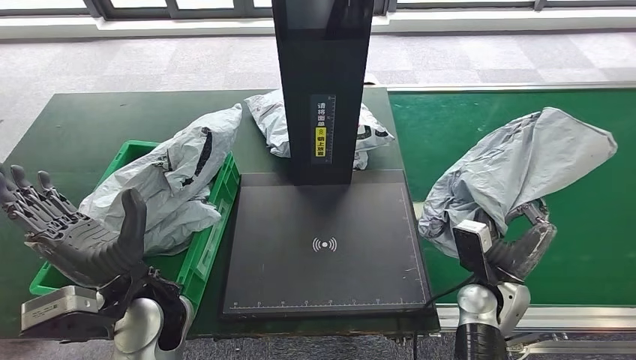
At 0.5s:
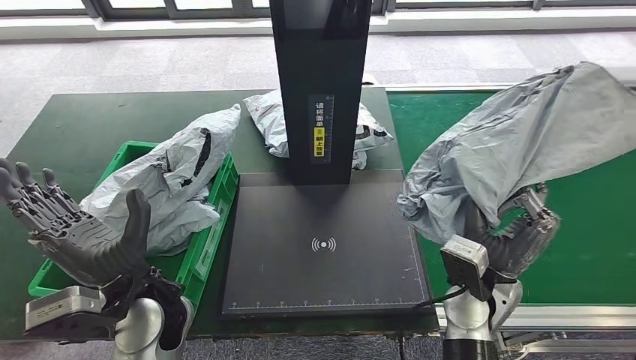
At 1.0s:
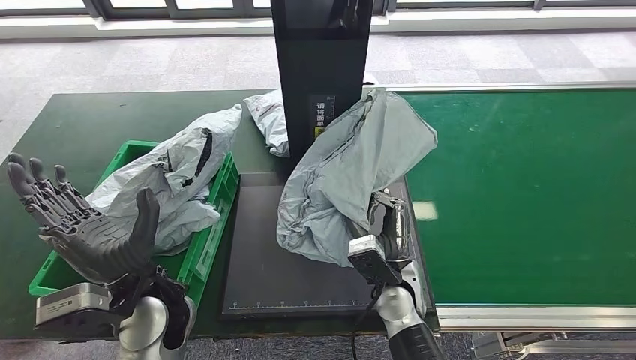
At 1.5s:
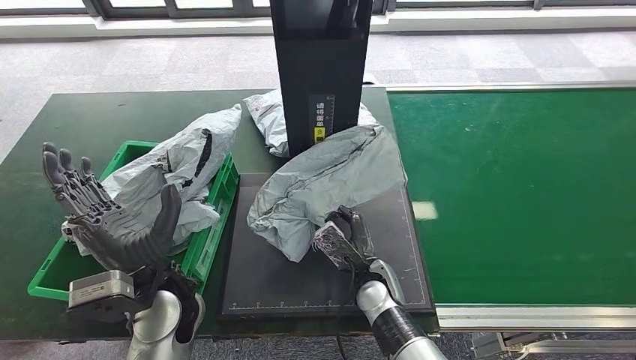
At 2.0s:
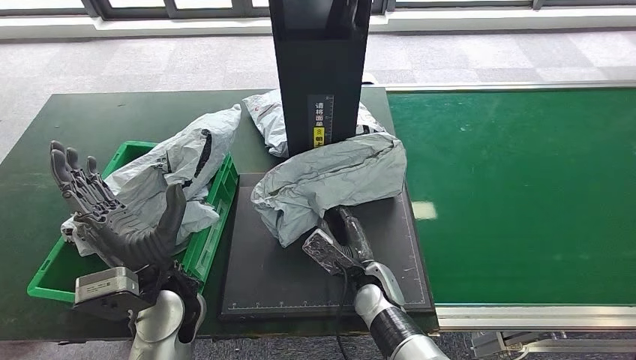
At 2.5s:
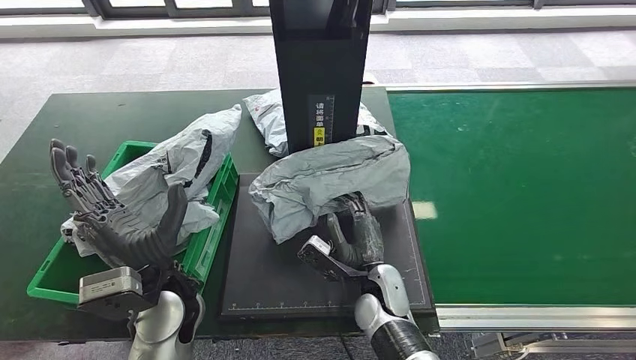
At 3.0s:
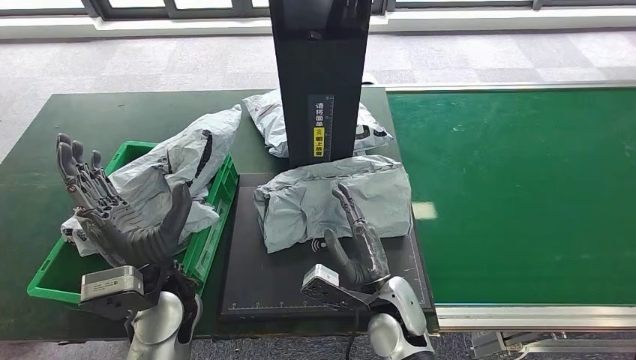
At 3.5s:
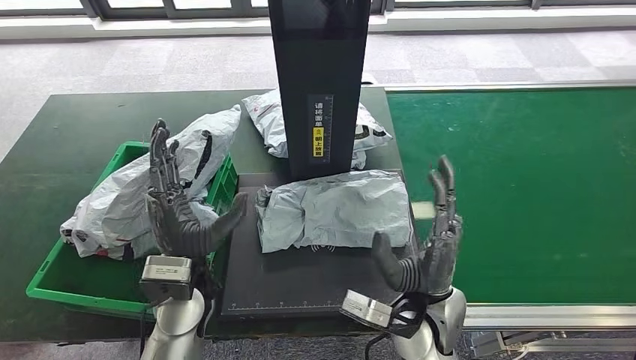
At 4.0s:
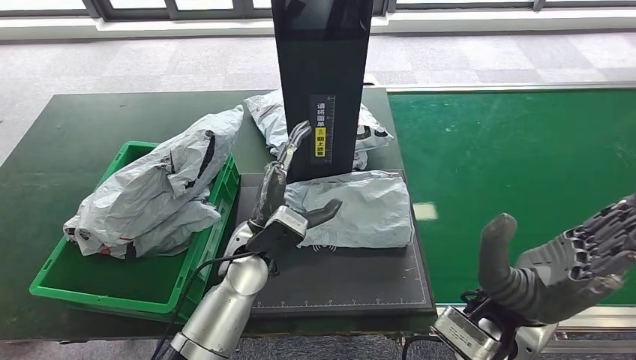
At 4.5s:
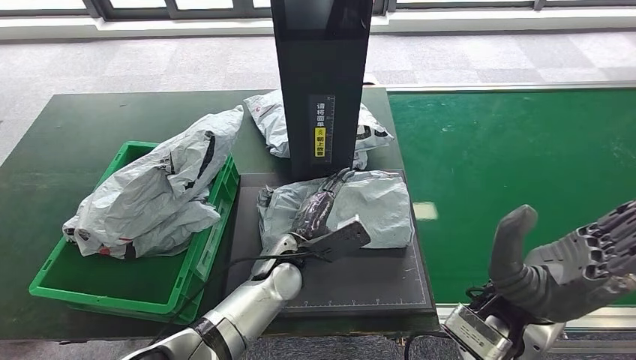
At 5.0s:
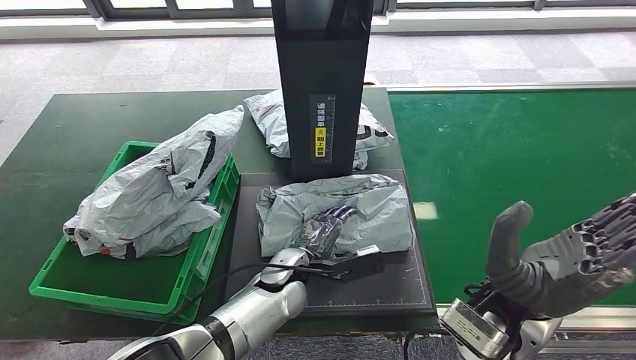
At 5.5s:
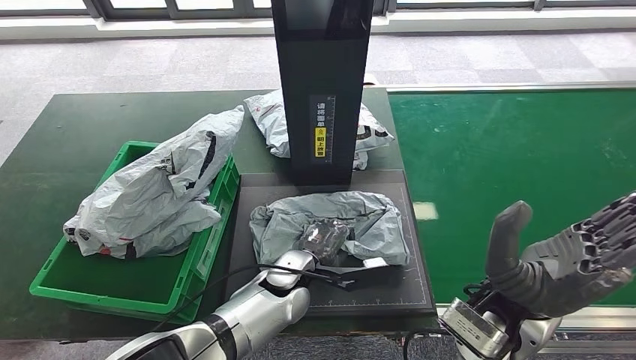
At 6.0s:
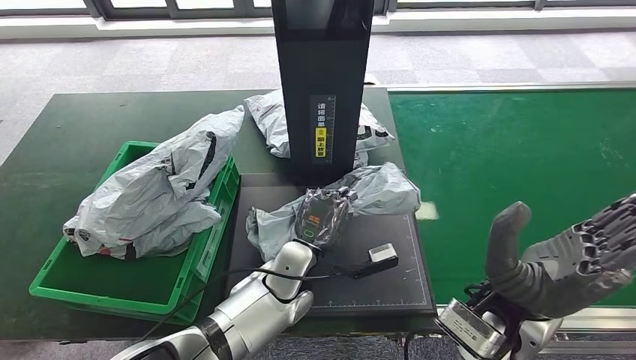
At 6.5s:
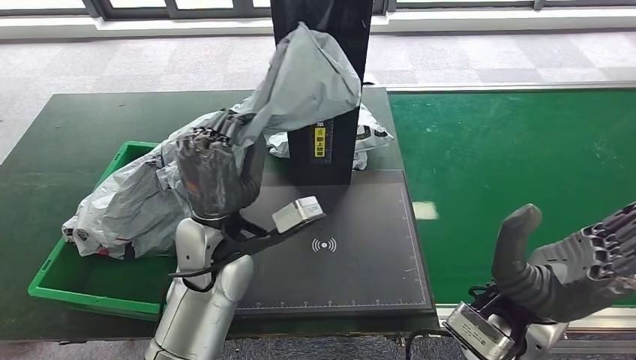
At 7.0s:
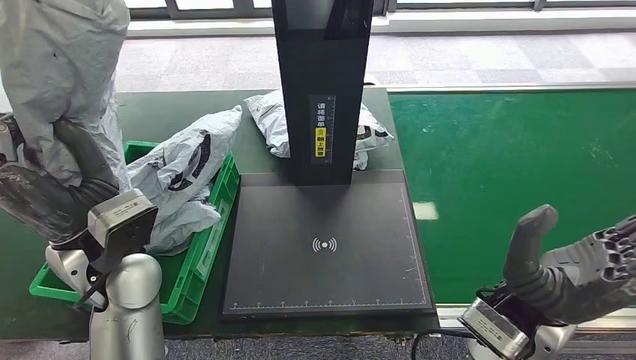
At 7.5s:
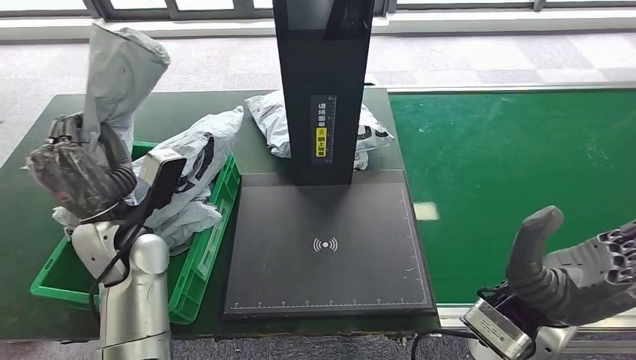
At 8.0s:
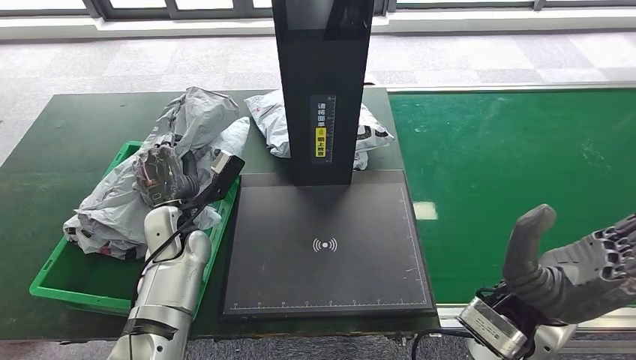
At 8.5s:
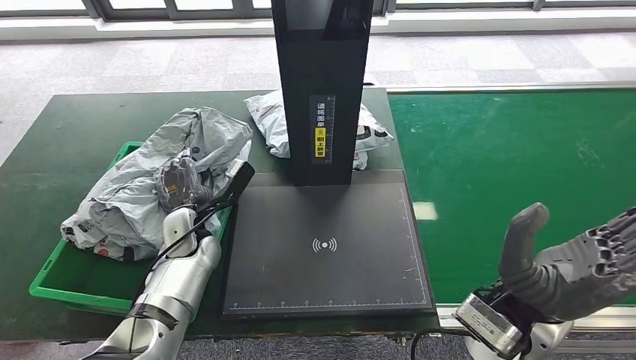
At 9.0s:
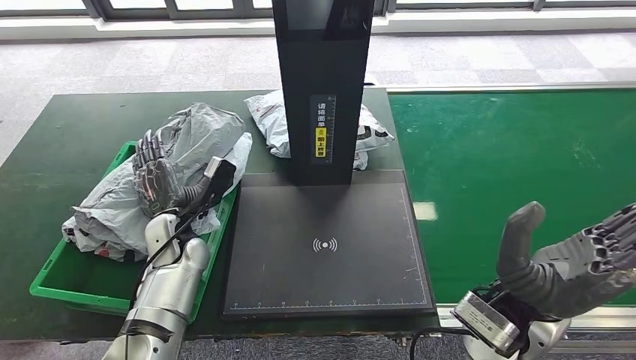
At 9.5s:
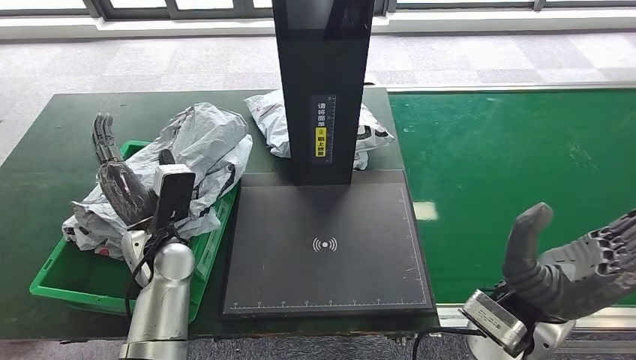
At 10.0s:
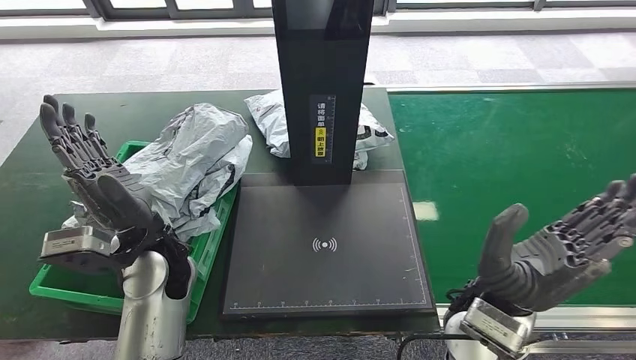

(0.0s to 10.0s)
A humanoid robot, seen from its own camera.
Step, 1.0s - 3.0s: Place the parcel onto the inbound machine.
Step, 3.5s - 7.0s: Pick up the parcel from the inbound machine.
Step, 7.5s - 10.0s: Place the parcel into the delivery box.
4.0s - 6.0s: The left hand shifts approximately 5 cm to the right.
8.0s - 10.0s: The left hand heads upward and backward, covering some 10 cm.
